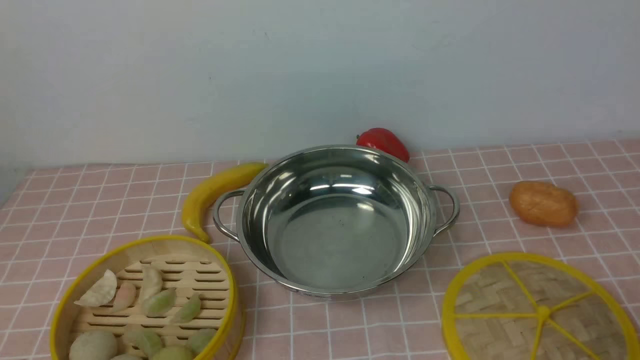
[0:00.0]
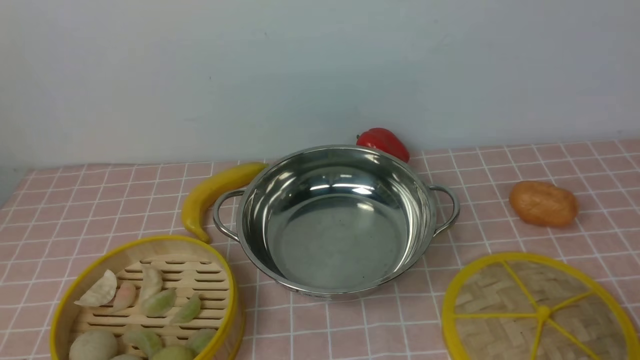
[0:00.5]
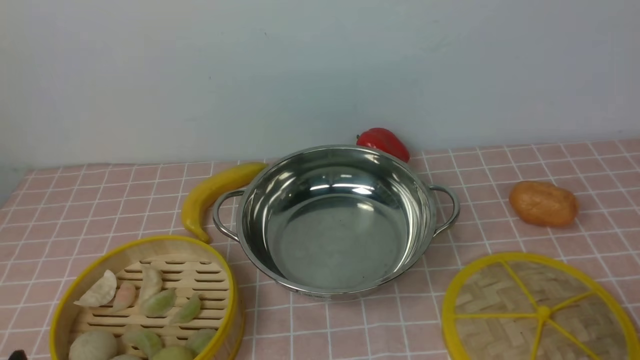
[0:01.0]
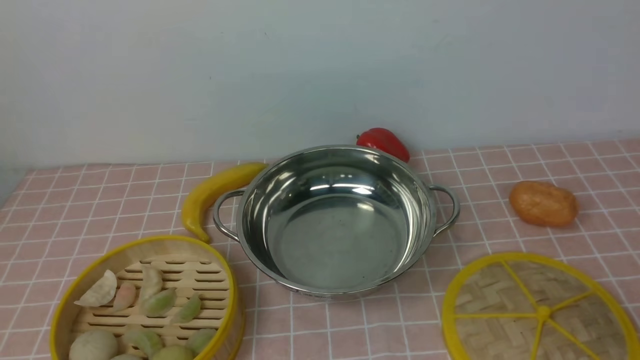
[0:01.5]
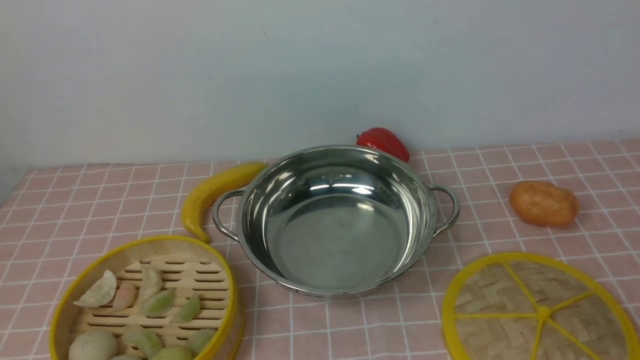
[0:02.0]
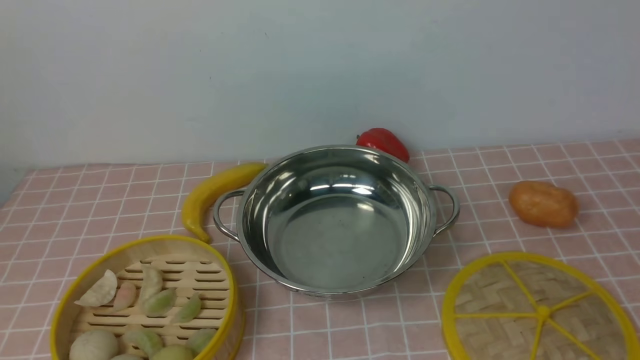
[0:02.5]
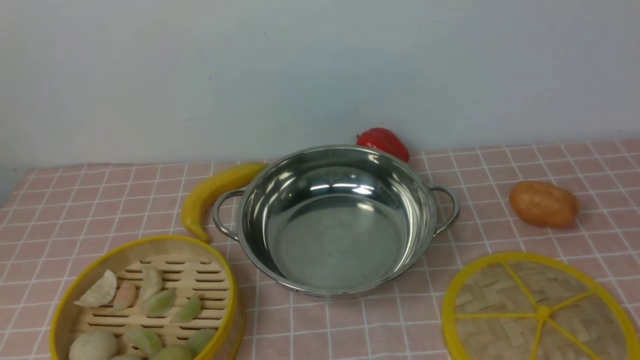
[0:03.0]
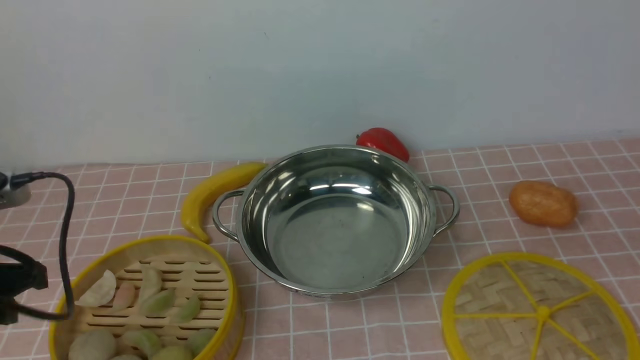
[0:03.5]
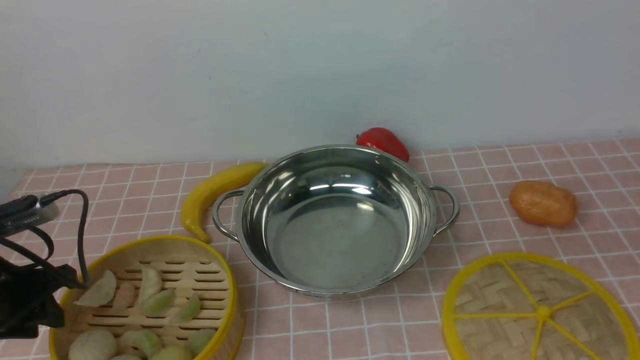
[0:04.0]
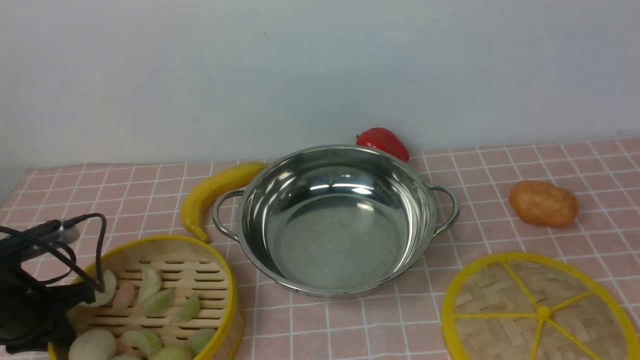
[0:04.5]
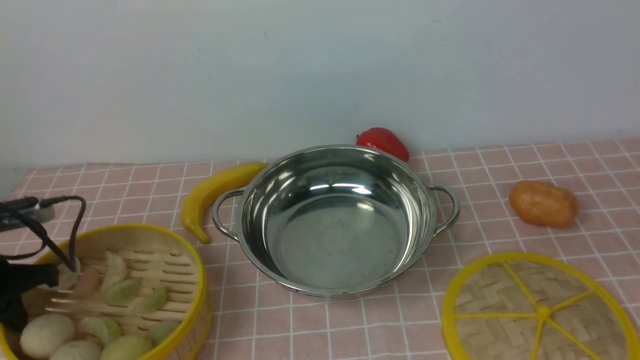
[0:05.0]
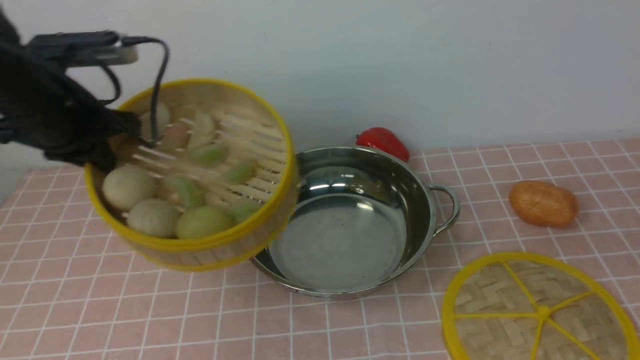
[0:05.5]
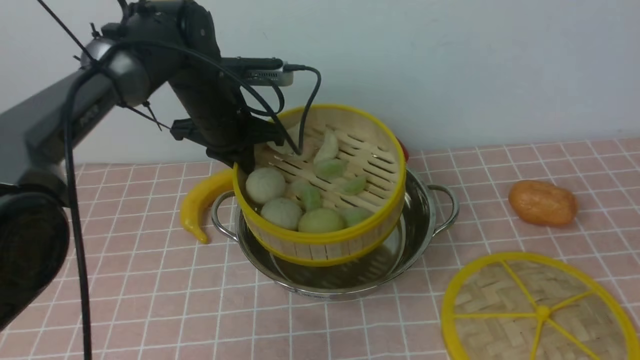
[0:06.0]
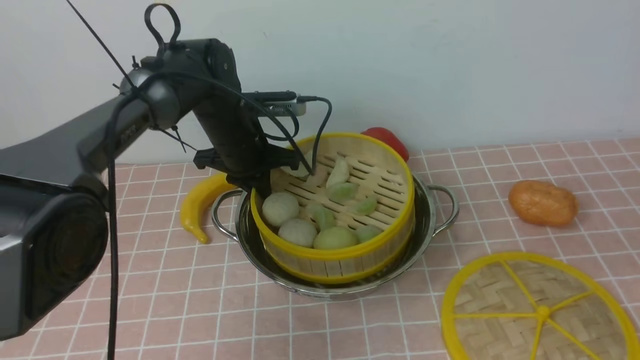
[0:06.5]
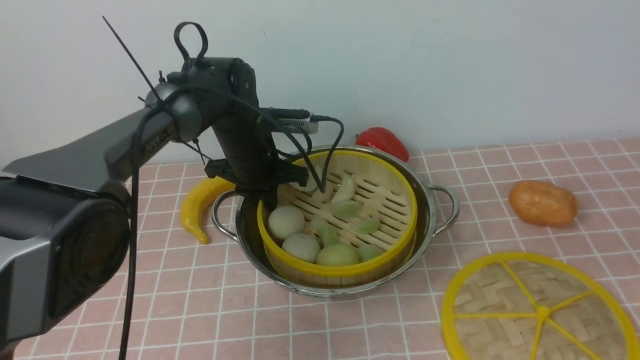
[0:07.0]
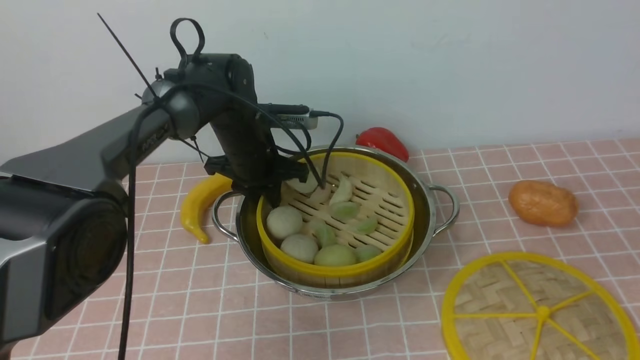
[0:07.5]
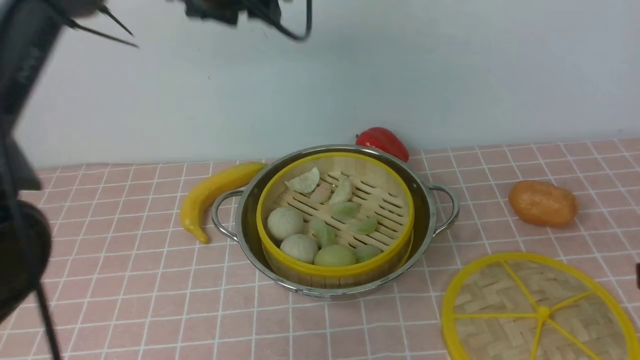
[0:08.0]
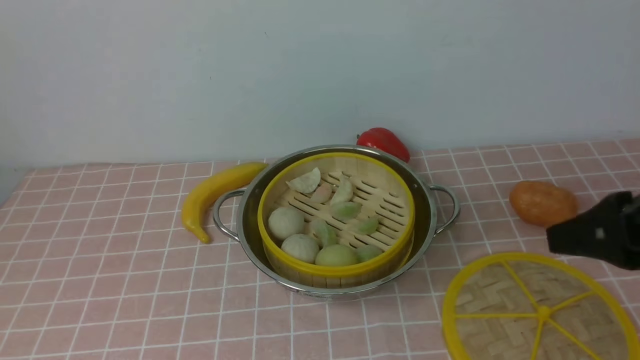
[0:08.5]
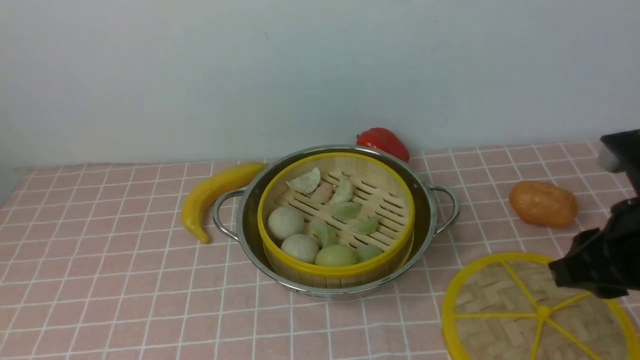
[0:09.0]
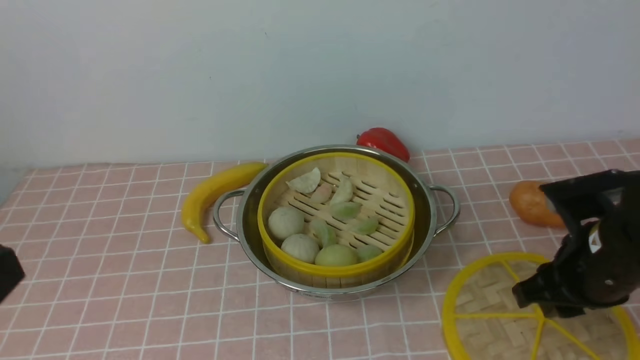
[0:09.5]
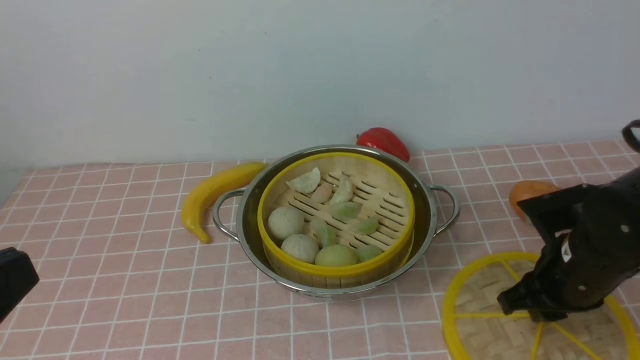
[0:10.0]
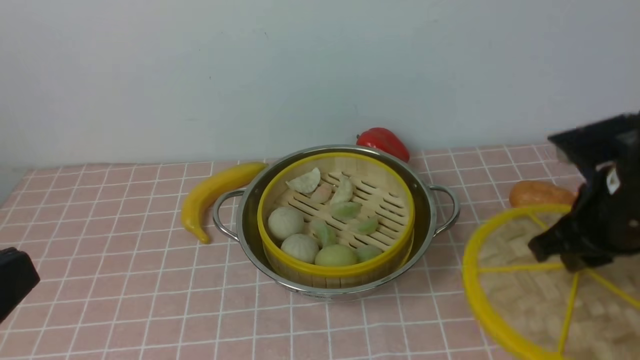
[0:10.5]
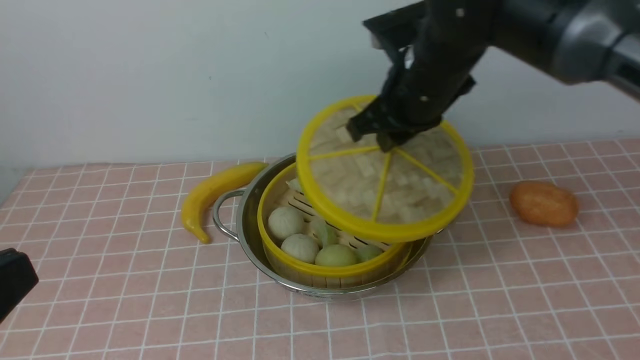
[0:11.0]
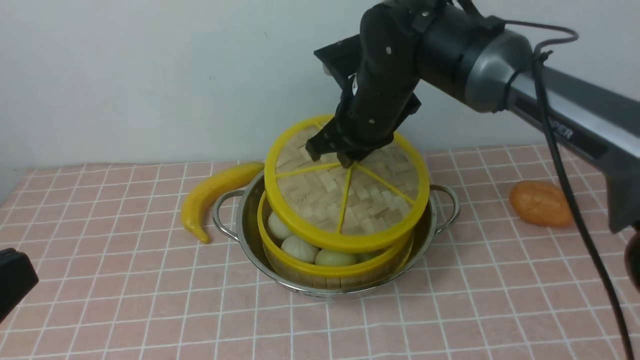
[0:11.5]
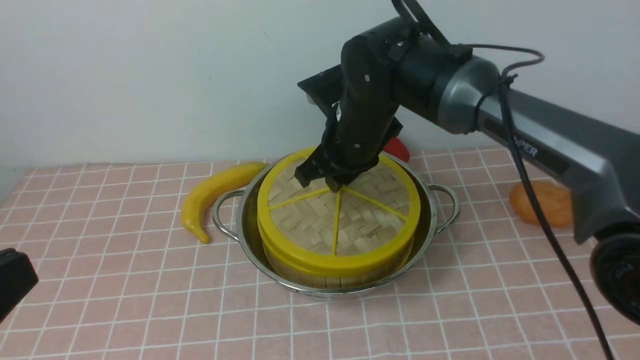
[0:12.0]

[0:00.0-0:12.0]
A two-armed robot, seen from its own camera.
Task of the whole recording: place the steamer in the pot on the pink tablecloth, and put the lid on the steamer.
Step, 0:00.0 to 0:05.0: use the left arm to lift the steamer closest to it.
Step, 0:05.5 to 0:07.5: use the left arm to put the steamer into the iron steamer pot in the middle.
Step, 0:08.0 to 0:10.0: use the right arm to lift the lid of the steamer.
0:02.0 to 0:04.0: The left gripper moves forward, approximately 20 cm.
0:04.0 to 0:06.0: The left gripper travels forward and to the right by approximately 25 cm, and closes its fingers.
0:06.0 to 0:08.0: The left gripper heads upward, covering roughly 10 cm, and opens up.
0:08.0 to 0:10.0: The right gripper travels downward, forward and to the left by approximately 20 cm; the left gripper moves backward, approximately 40 cm, and closes up.
0:10.0 to 0:12.0: The right gripper heads to the left and forward, covering some 25 cm.

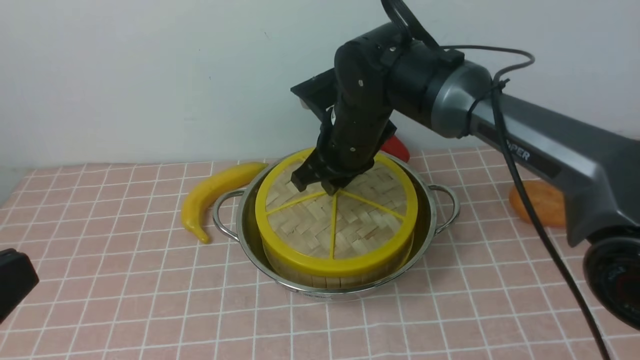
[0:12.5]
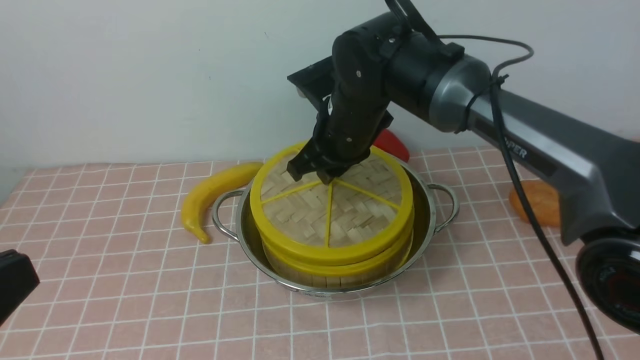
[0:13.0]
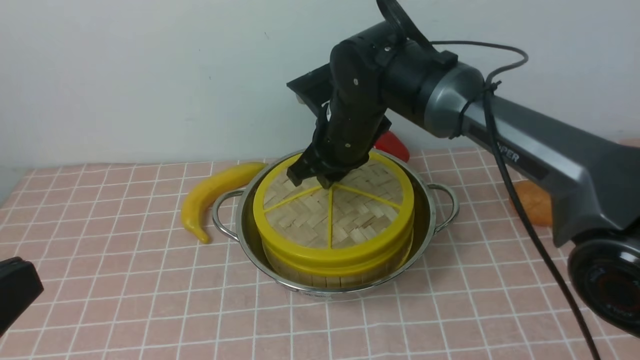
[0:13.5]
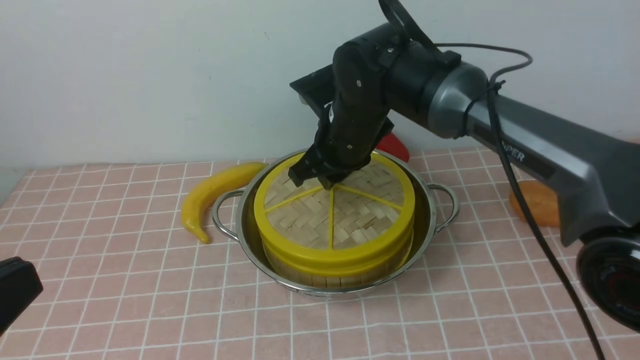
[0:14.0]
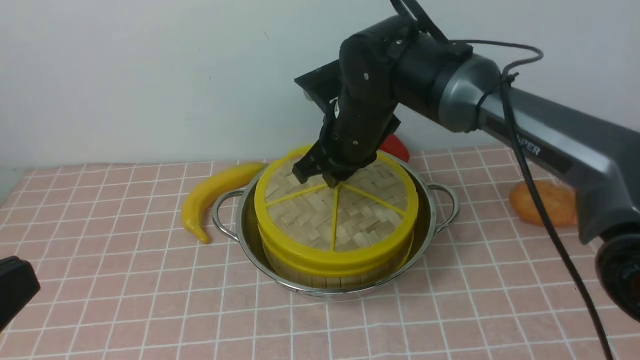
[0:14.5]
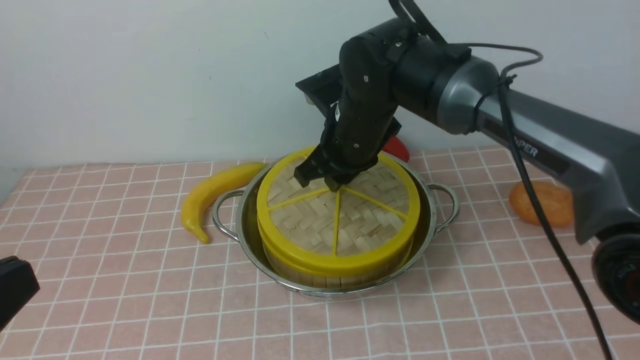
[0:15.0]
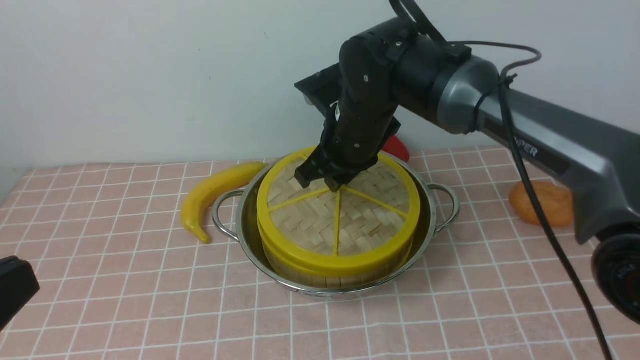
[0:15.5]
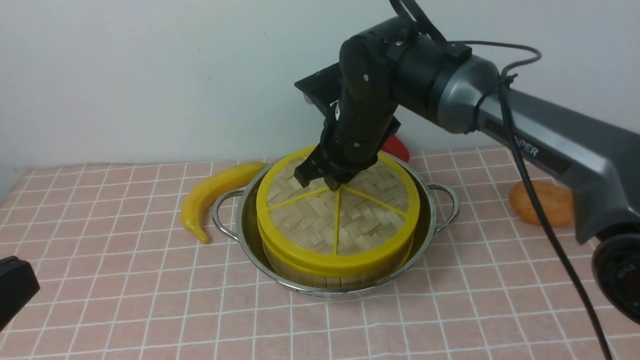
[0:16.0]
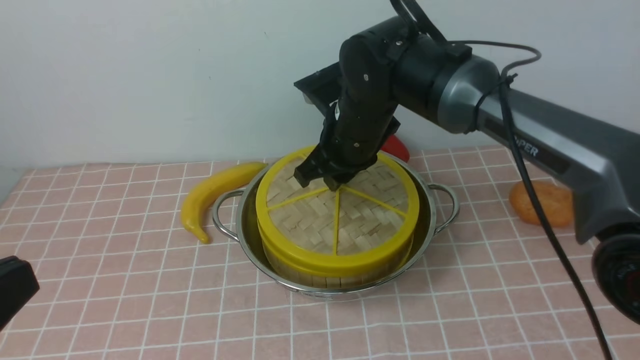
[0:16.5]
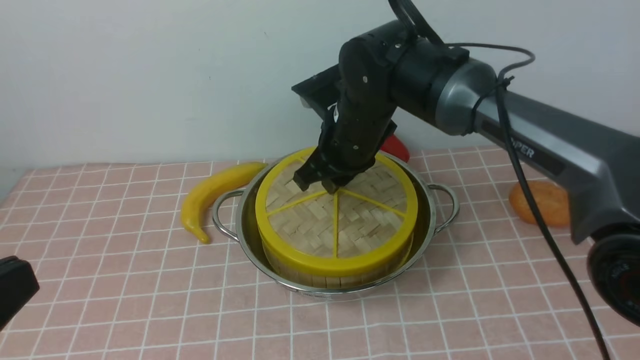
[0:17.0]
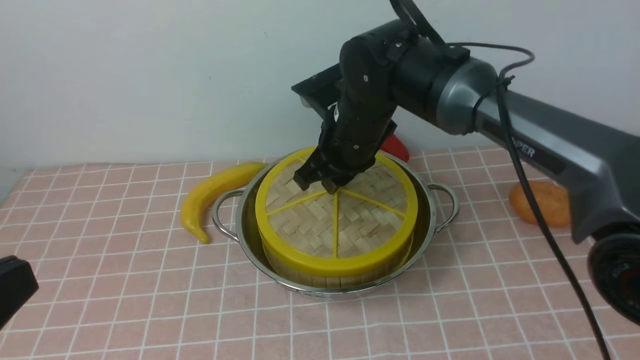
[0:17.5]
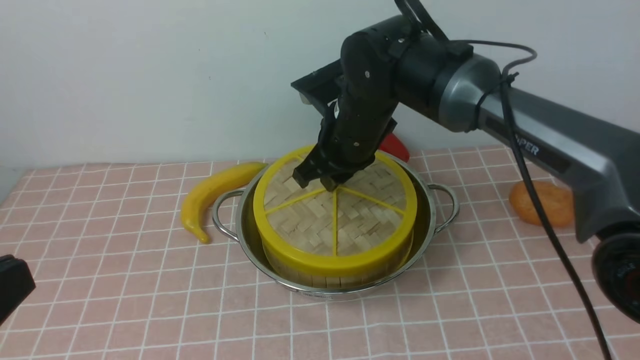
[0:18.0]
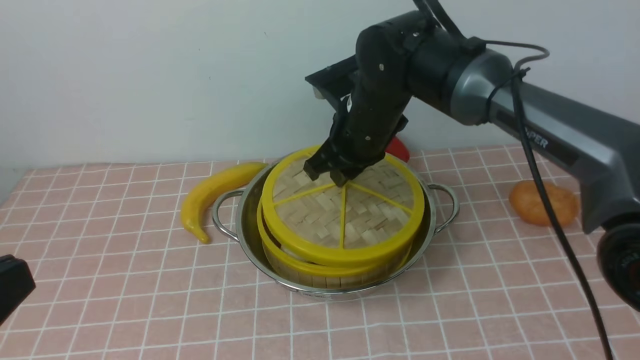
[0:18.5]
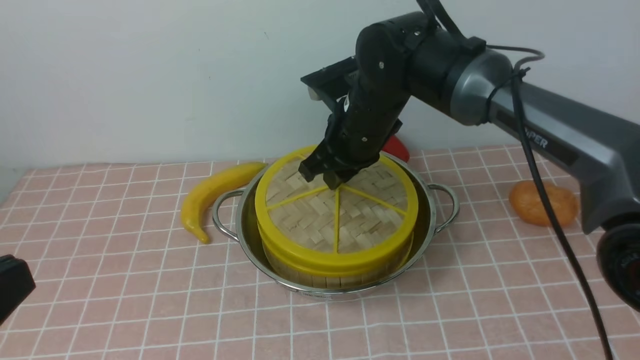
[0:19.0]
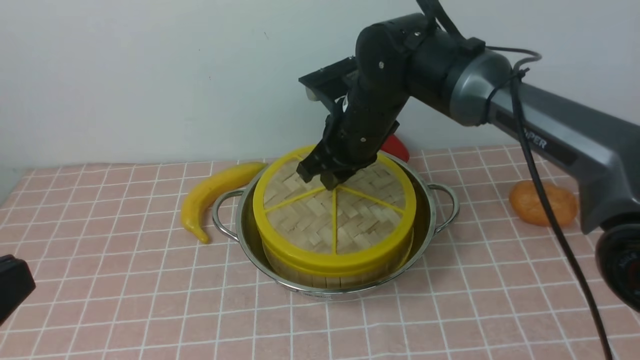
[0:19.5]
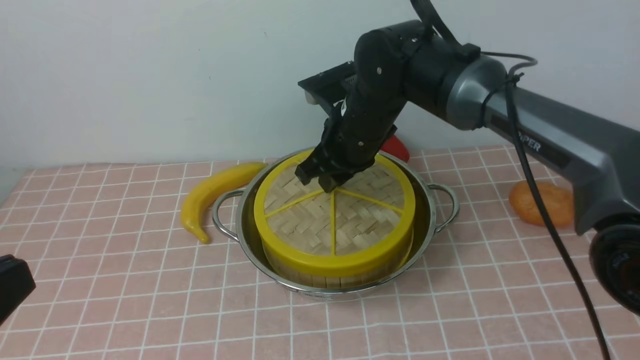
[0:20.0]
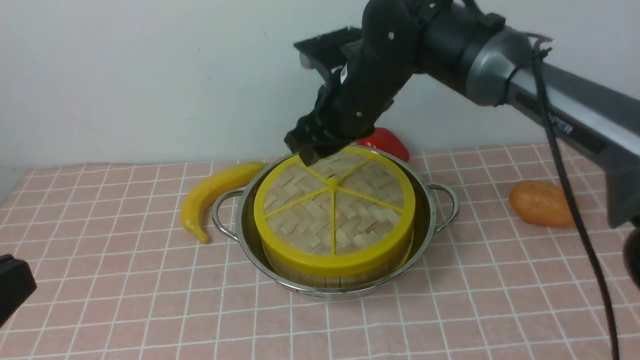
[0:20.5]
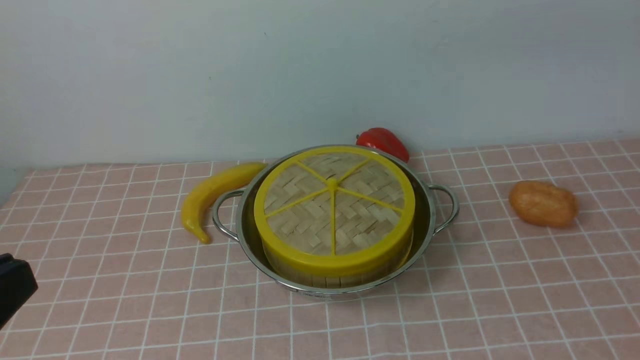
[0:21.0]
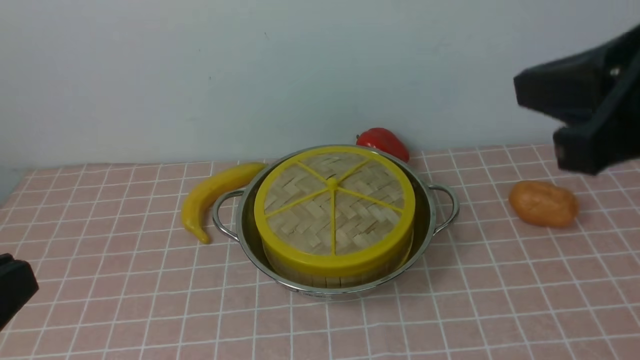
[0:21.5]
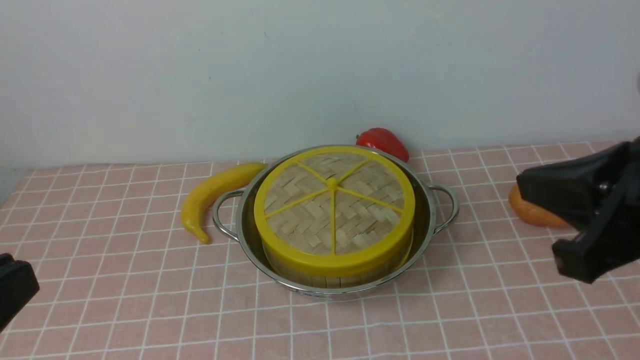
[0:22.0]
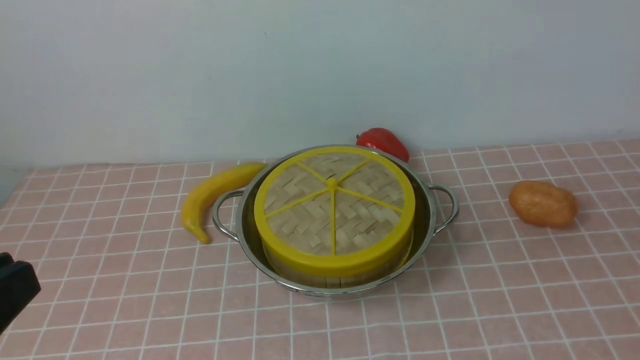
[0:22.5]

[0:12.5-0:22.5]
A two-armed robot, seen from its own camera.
Task of the whole recording: place the steamer in the pot on the pink tablecloth, and put the lid on the steamer.
Step, 0:12.5 to 0:20.0: use the right arm to place the steamer lid on the steamer.
0:12.5 to 0:18.5: Neither gripper changes place.
0:18.5 to 0:20.5: The right gripper opens its fingers.
0:20.5 to 0:22.5: The right gripper moves backward and to the right, approximately 40 cm, and closes up.
